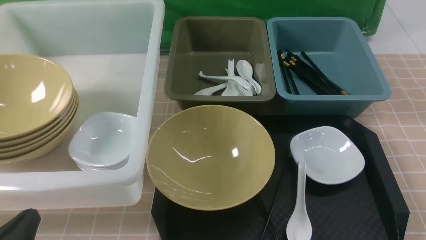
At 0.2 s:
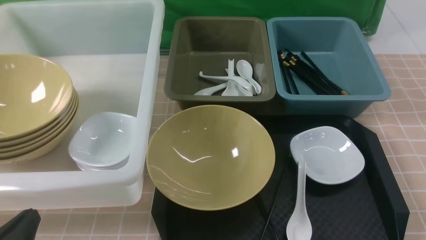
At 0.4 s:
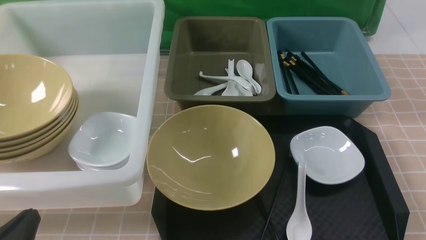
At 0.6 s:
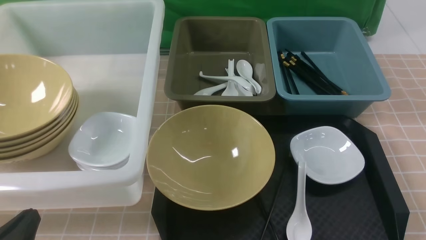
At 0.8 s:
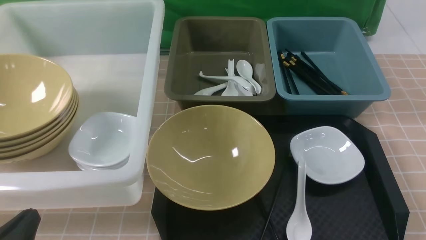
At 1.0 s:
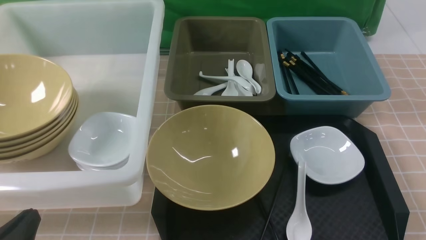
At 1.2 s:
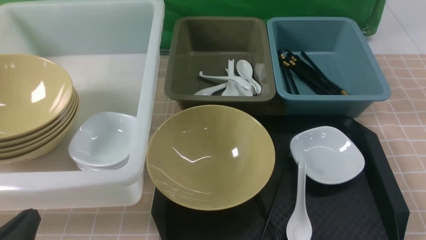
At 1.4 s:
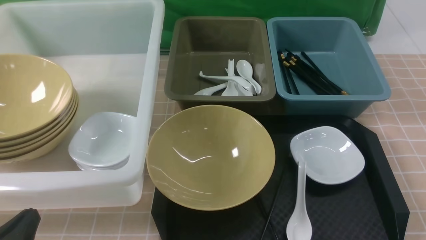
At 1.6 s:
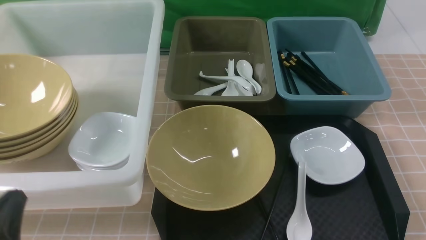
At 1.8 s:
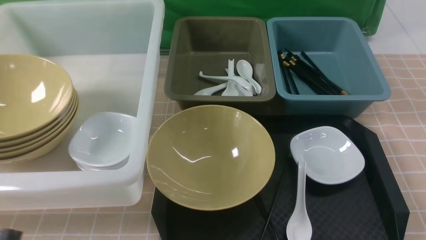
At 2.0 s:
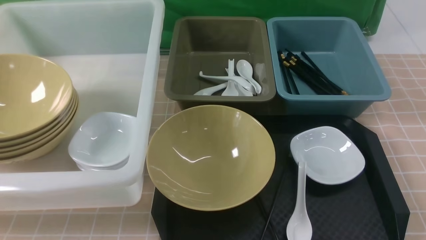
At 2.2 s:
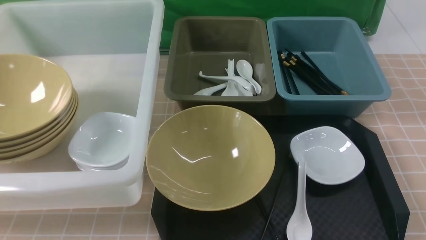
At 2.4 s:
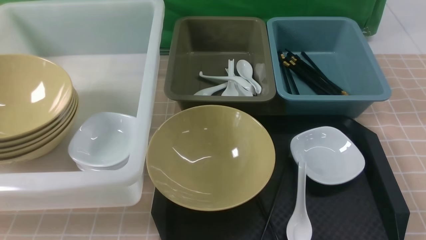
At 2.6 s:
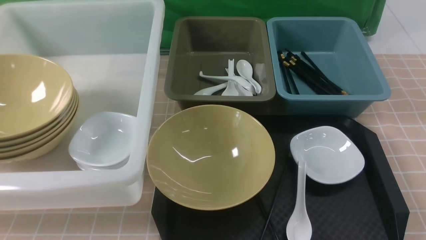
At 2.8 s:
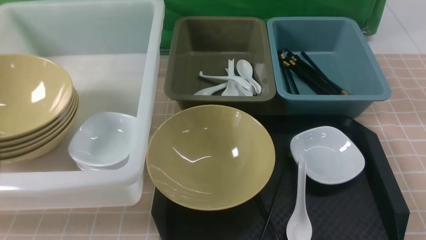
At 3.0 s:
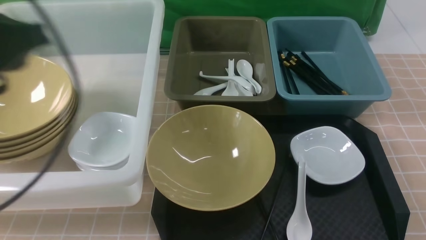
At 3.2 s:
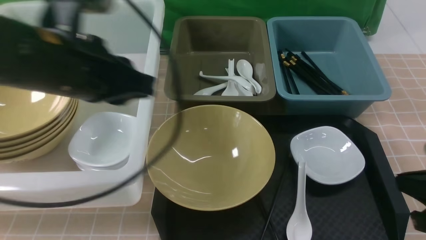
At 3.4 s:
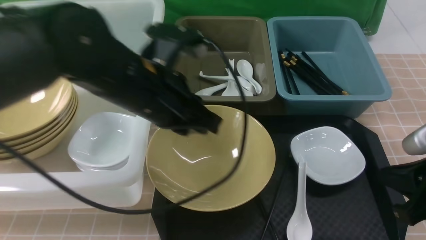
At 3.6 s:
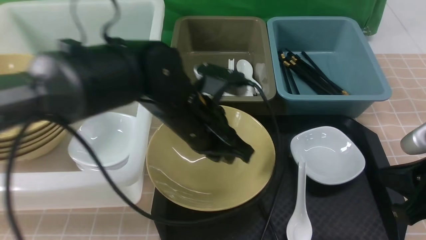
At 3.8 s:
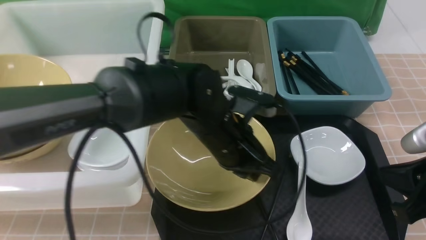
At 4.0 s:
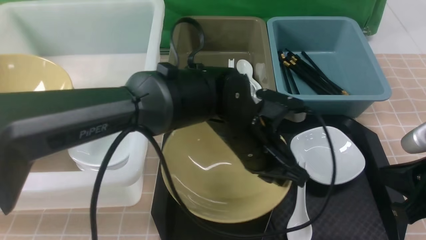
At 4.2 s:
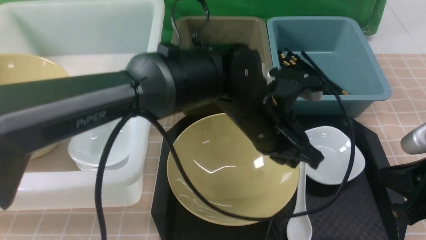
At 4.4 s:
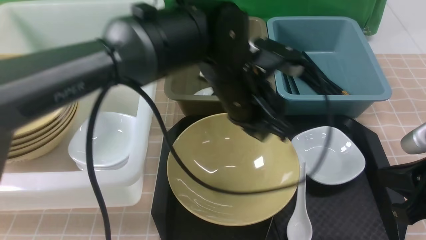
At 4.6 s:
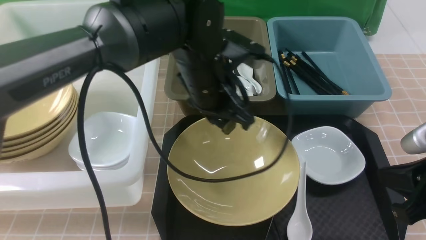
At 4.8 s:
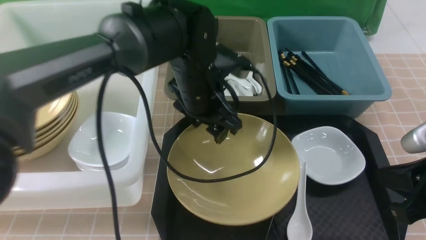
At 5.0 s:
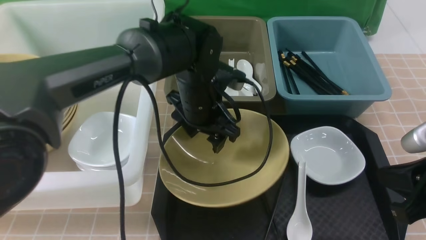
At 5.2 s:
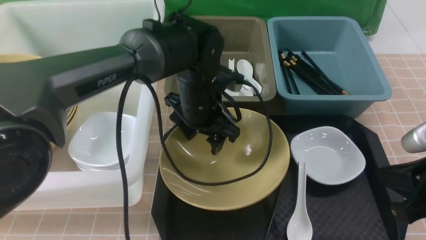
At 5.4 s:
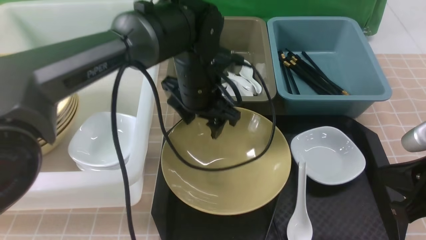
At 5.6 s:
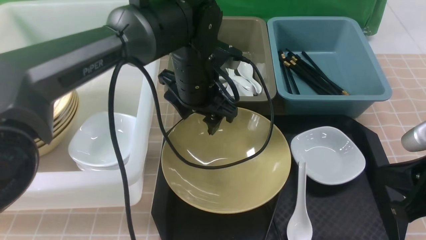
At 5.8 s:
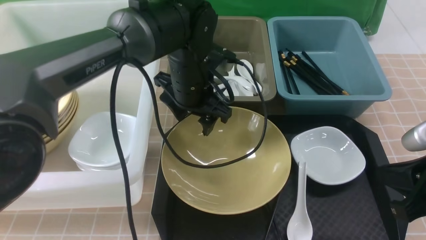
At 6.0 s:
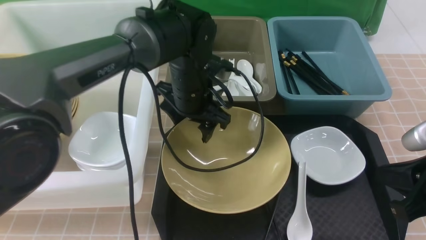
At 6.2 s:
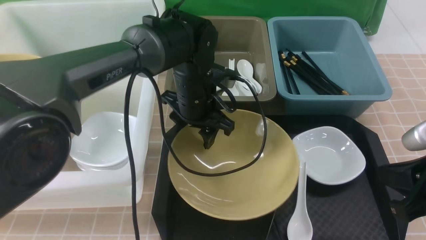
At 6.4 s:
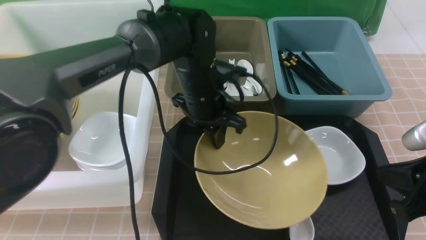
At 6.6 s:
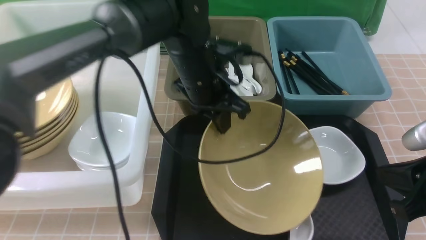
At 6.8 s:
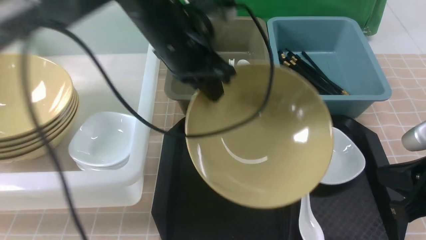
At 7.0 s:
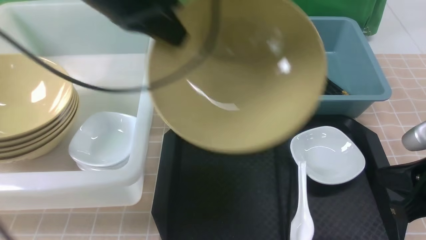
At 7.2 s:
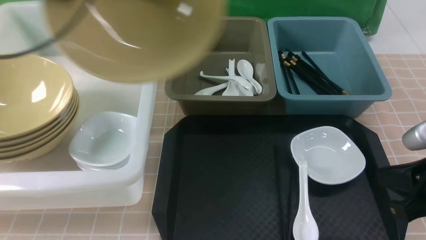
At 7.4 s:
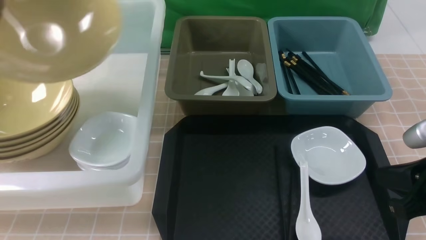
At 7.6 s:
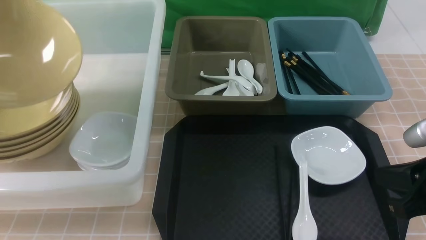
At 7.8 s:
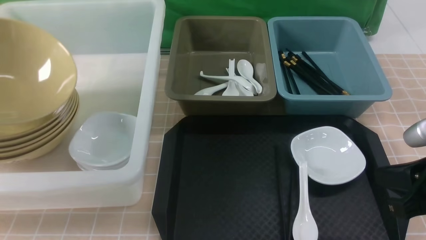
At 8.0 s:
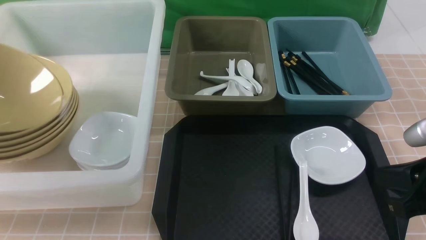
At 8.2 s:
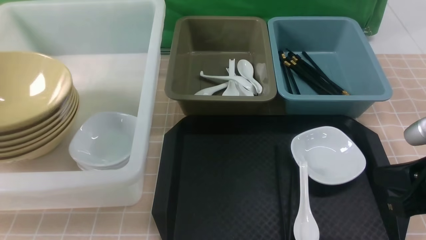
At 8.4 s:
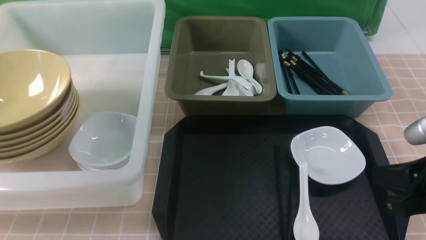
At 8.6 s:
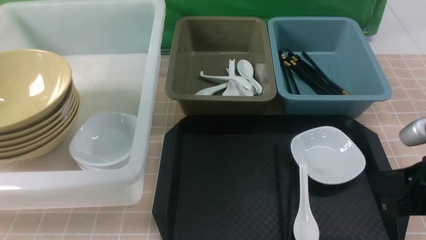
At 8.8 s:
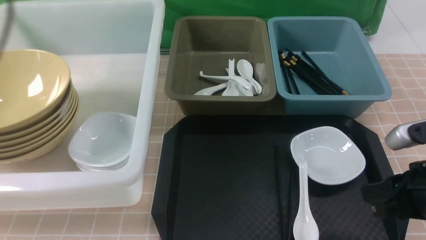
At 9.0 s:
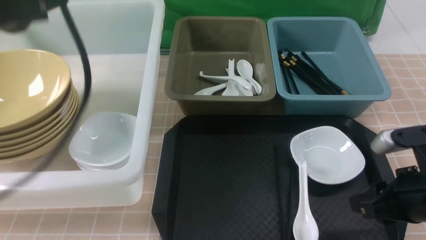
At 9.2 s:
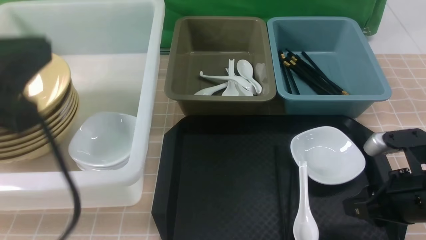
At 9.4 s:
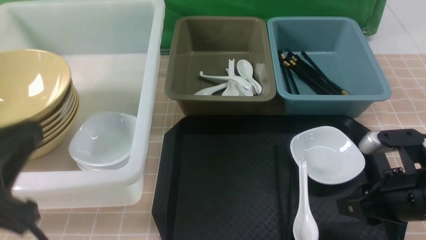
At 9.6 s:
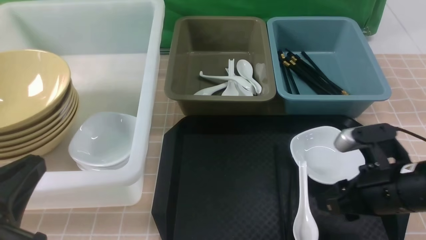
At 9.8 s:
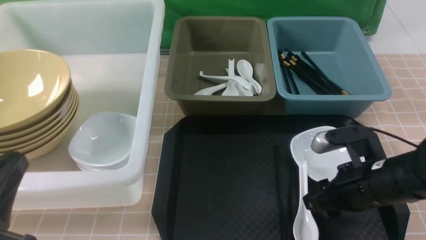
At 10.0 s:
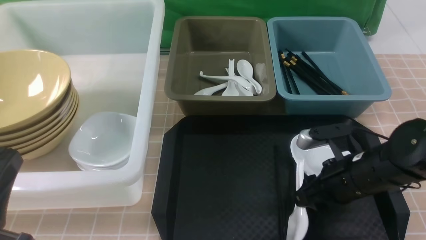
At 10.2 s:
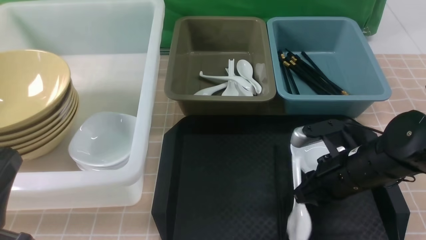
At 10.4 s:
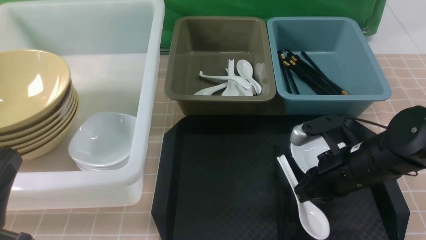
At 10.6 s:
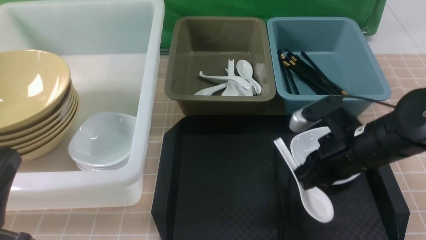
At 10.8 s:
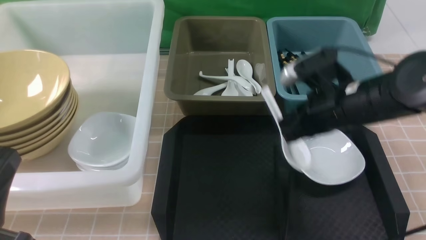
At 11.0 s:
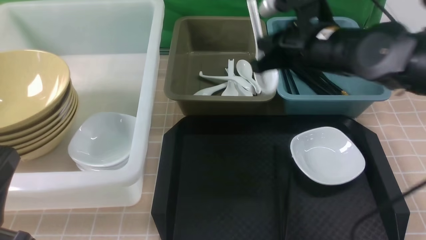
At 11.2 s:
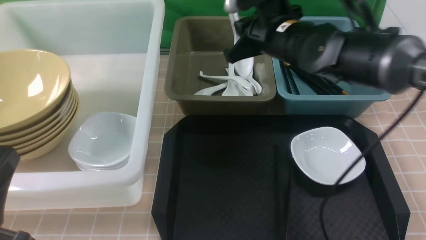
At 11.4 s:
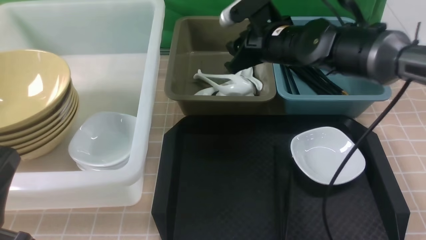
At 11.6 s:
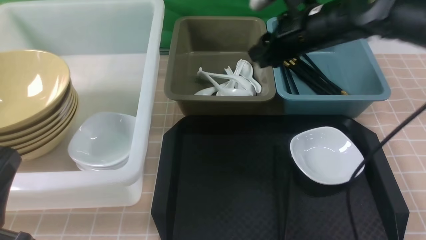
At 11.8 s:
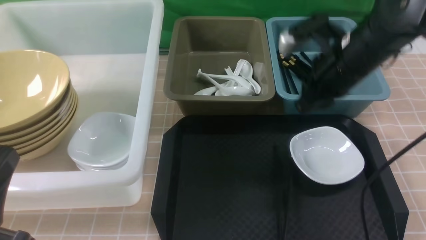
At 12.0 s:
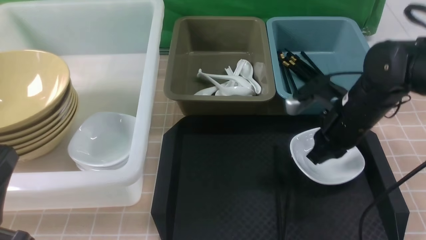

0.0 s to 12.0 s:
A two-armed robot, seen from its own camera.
Task of the whole recording: on brown table put chopsticks spoon bowls plates into blue grey white boxes.
Step, 0.0 to 6.6 s: use the left arm to grab the yellow noodle bowl on the left.
Step, 6.8 to 8.4 s: use the left arm to put the noodle bowl into the large storage box on the left.
Step, 8.6 to 10.6 s: use the right arm to grab the soup spoon in the middle.
Step, 10.8 to 11.8 s: use the right arm to put the soup spoon into the small storage box in the middle.
1.6 to 3.0 s: The left gripper is displaced upward and forward by roughly 25 cm.
3.0 to 4.4 s: The left gripper is displaced to the right, downward and forward by about 30 cm. The right gripper shifts roughly 5 cm downward.
4.4 to 6.0 s: The left gripper shifts some 10 cm forward and to the left, and opens its fingers.
6.0 to 7.6 s: The left gripper is displaced to the left by some 35 cm, and closes its fingers.
7.6 to 9.0 s: The left gripper moves to the right and backward, roughly 15 cm, and opens, then closes again. The right gripper opens.
9.0 to 10.4 s: The left gripper shifts about 20 cm downward and backward. Meanwhile the right gripper travels forward and to the left by some 10 cm, and opens, then closes once more.
10.4 to 12.0 s: The right gripper goes approximately 10 cm forward and upward, and opens, then closes once more.

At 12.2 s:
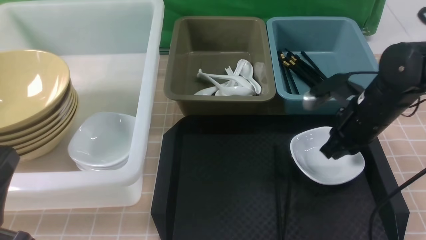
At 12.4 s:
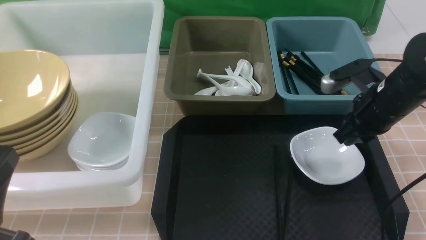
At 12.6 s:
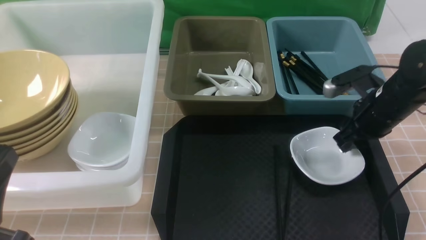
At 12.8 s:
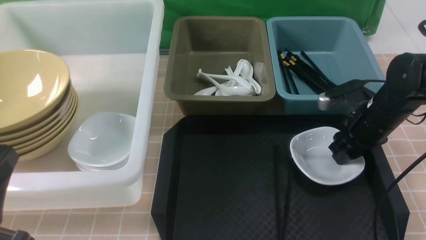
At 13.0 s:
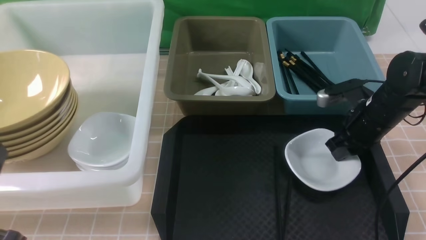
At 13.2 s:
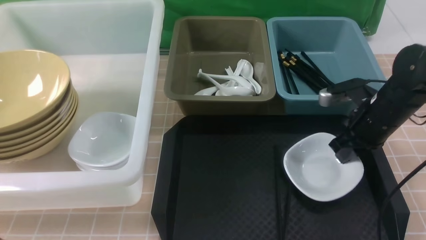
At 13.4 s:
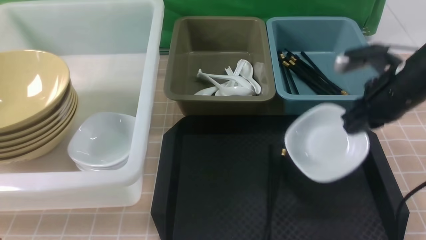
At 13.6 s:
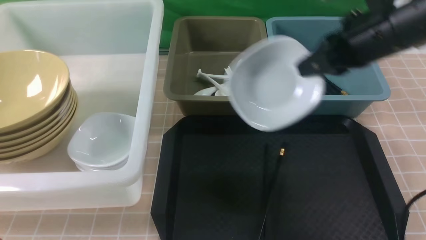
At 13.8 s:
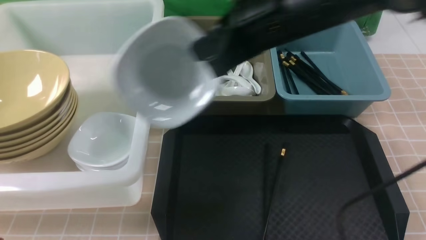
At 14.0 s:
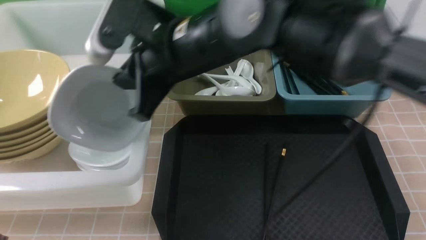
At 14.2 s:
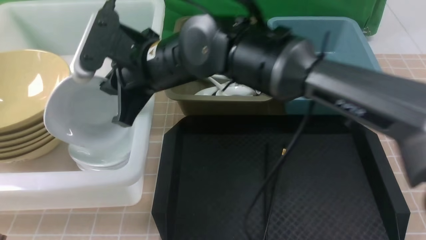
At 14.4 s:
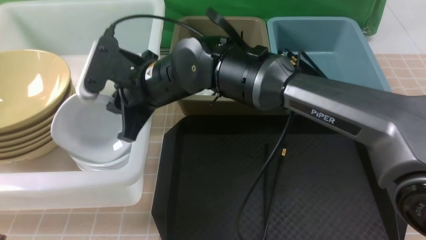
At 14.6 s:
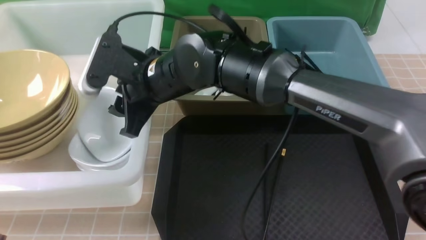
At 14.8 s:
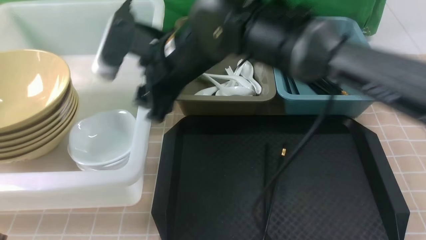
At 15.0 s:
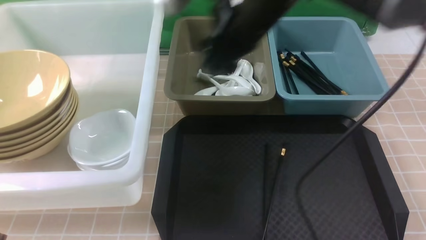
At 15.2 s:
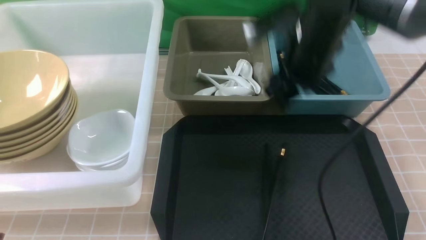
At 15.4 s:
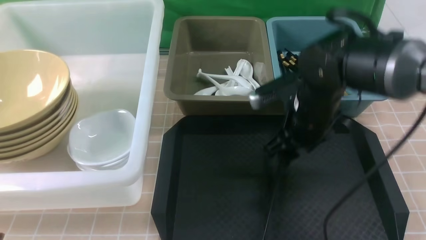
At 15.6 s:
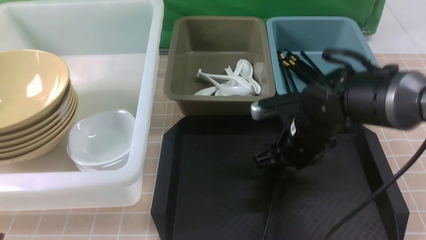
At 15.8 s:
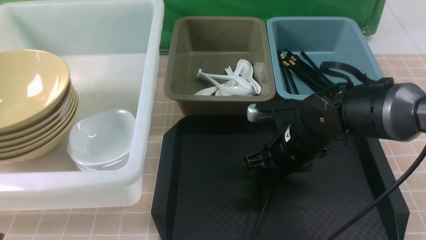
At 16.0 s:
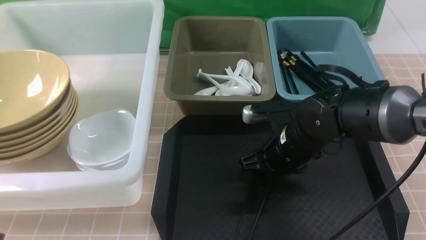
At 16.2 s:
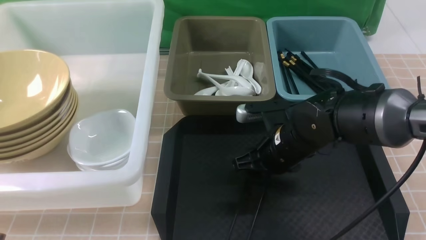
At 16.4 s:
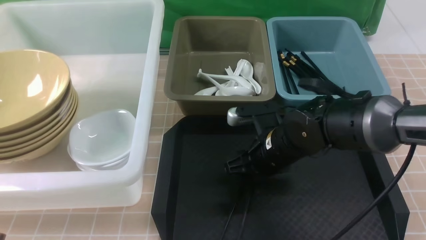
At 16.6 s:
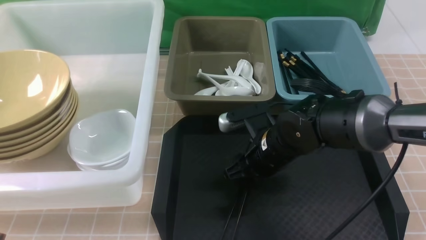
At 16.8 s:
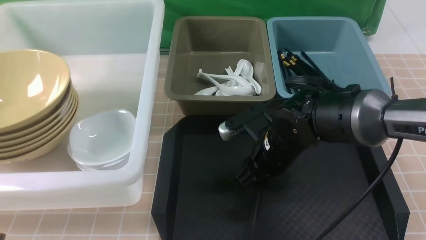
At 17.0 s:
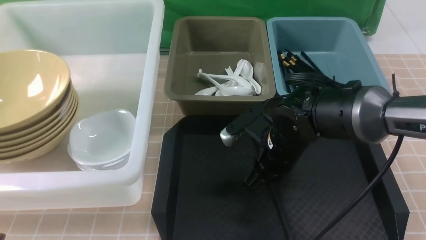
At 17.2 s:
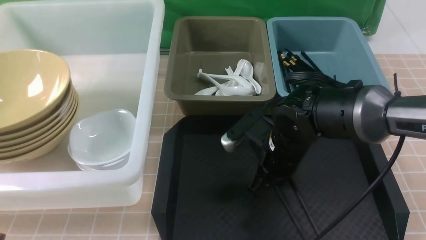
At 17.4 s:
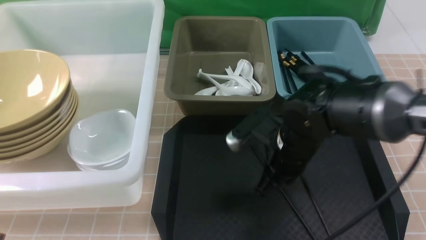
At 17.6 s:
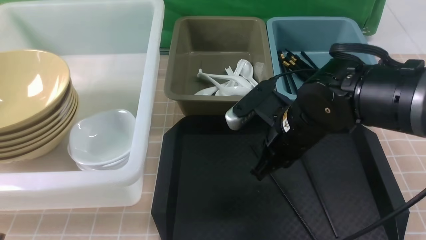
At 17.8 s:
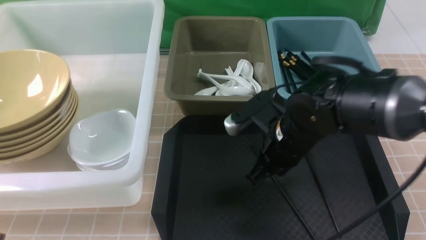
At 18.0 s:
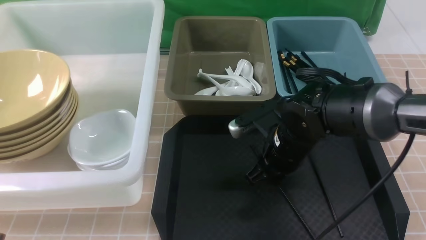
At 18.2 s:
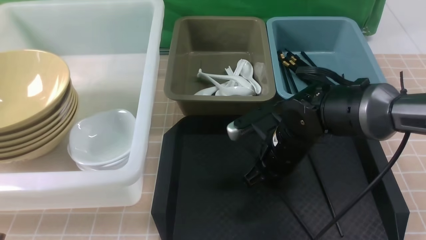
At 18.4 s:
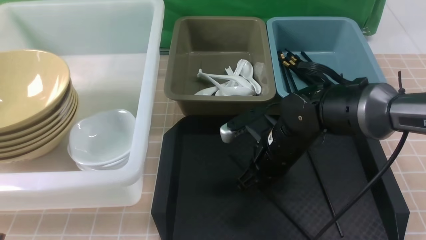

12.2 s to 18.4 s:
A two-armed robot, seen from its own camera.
Task of the whole recording: on brown table put chopsticks spoon bowls plates into blue grey white boxes.
Step, 12.2 to 13.4 s: use the right arm to grab the plate.
Step, 13.6 to 14.6 s: use the right arm to put the plate into the large storage box on the left.
12.2 to 13.8 s: The right gripper moves upward and to the left, about 20 cm, and opens and closes again.
13.8 to 15.4 s: The right gripper travels downward by roughly 10 cm, moves roughly 20 cm to the left and comes back, and opens its fingers.
15.4 to 16.8 s: The right gripper travels downward by roughly 10 cm.
16.8 to 18.4 s: The right gripper closes up.